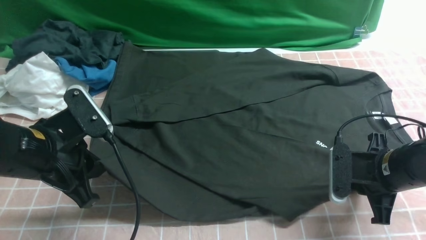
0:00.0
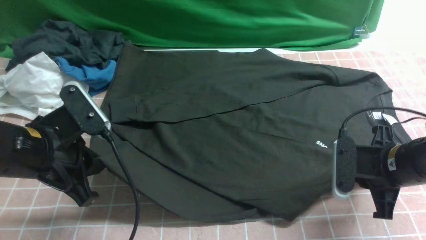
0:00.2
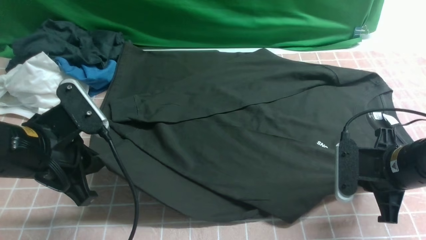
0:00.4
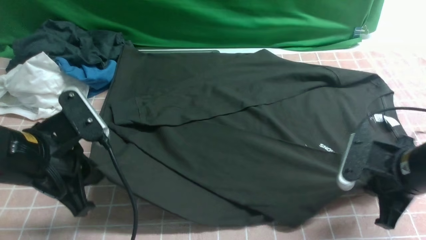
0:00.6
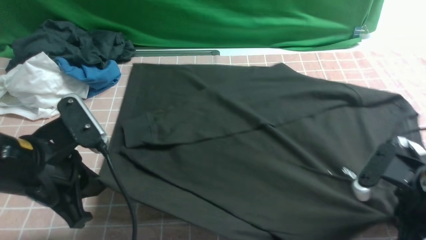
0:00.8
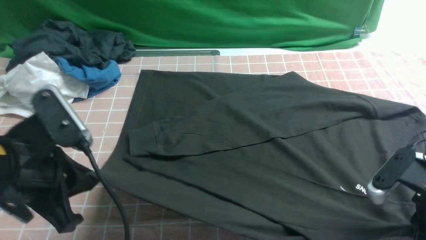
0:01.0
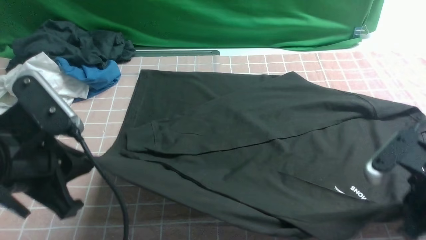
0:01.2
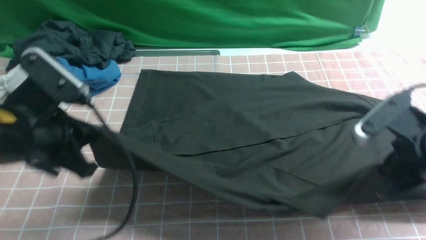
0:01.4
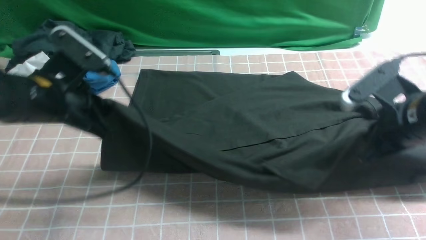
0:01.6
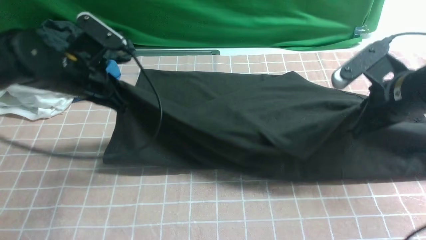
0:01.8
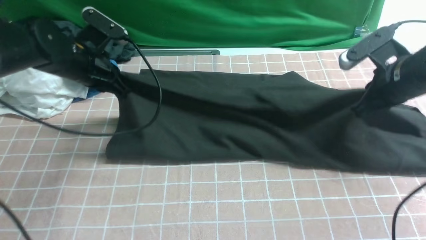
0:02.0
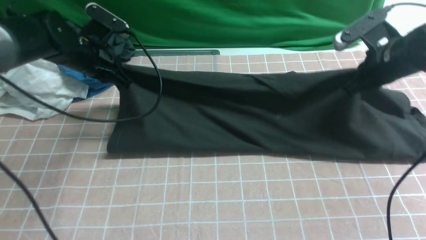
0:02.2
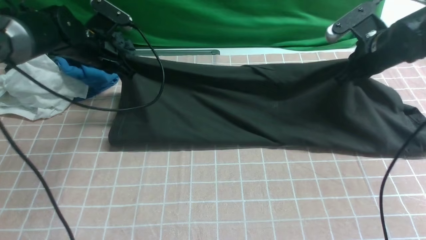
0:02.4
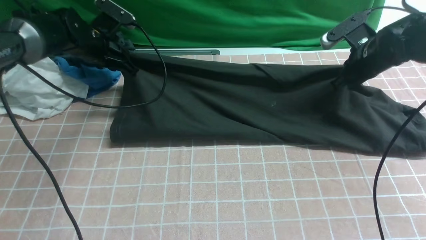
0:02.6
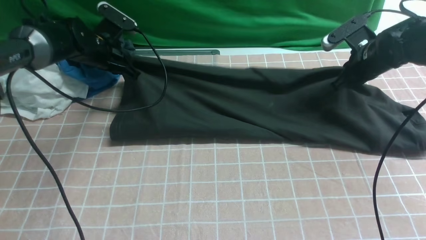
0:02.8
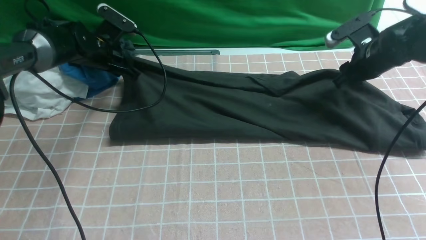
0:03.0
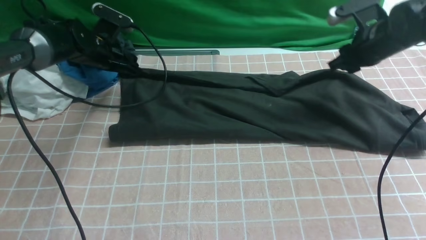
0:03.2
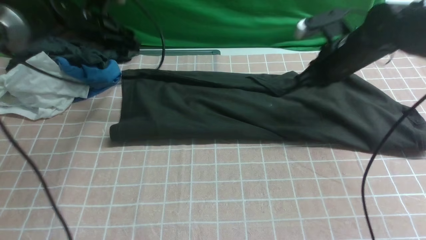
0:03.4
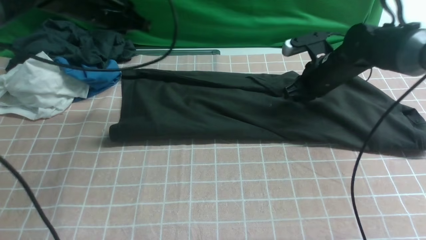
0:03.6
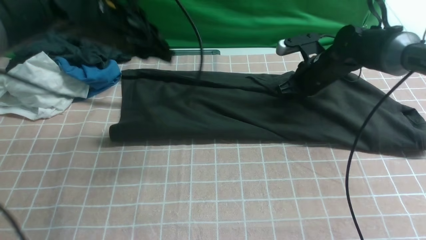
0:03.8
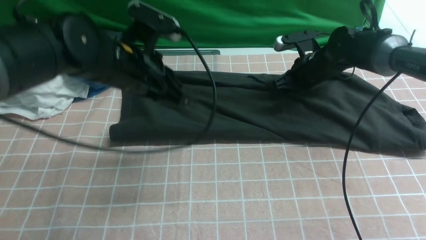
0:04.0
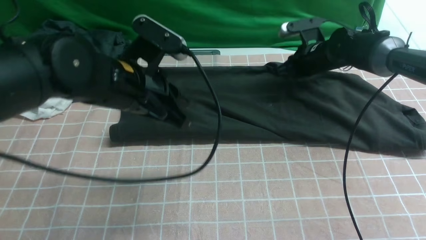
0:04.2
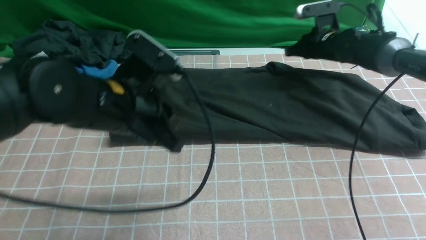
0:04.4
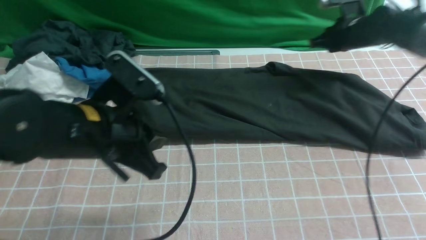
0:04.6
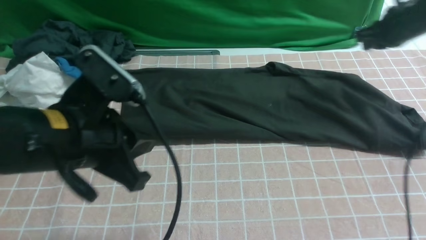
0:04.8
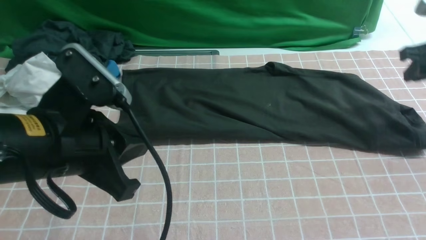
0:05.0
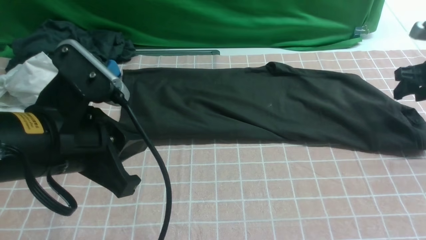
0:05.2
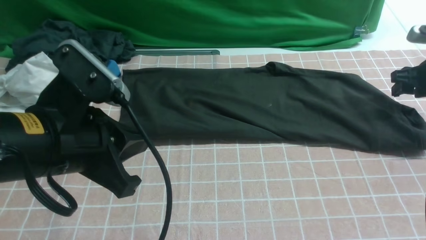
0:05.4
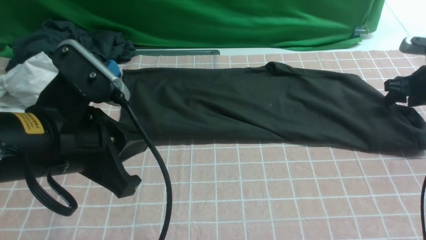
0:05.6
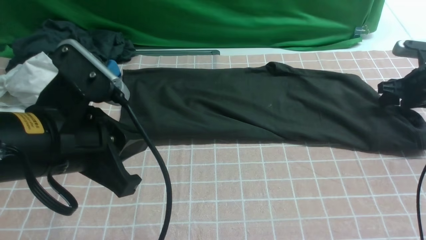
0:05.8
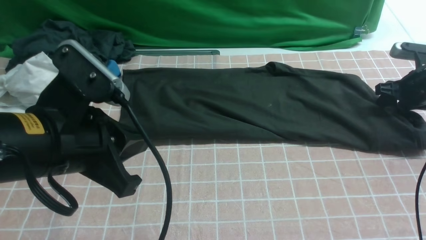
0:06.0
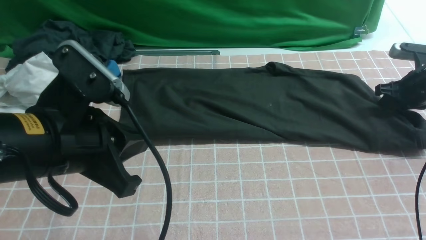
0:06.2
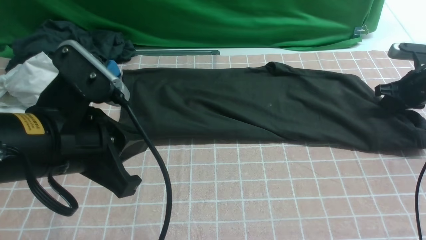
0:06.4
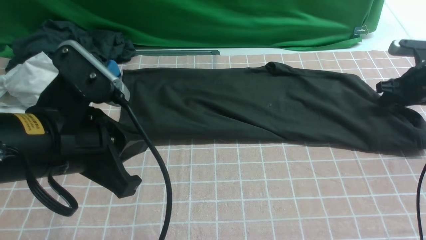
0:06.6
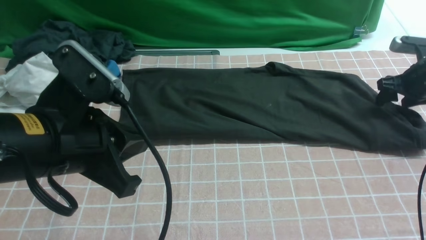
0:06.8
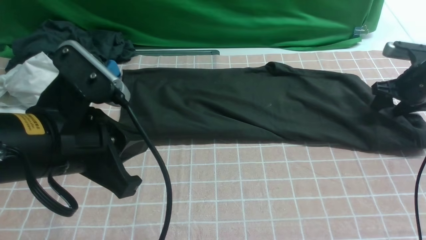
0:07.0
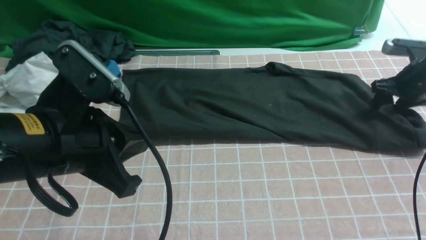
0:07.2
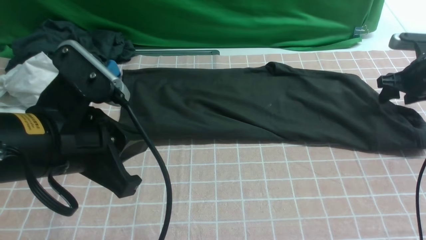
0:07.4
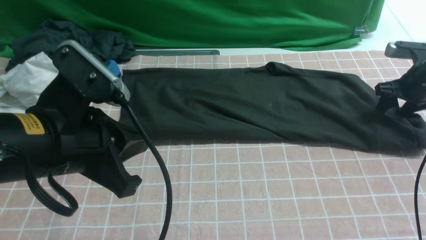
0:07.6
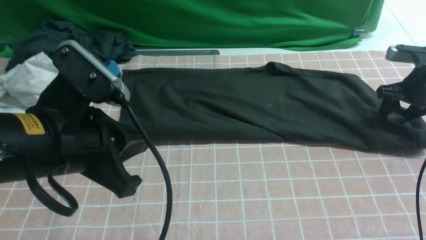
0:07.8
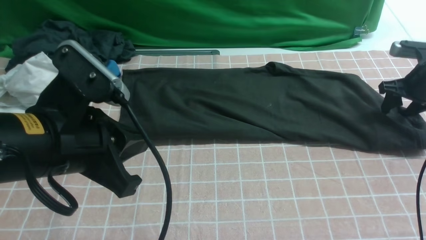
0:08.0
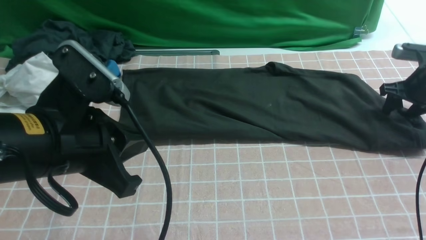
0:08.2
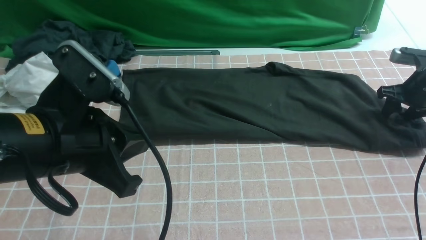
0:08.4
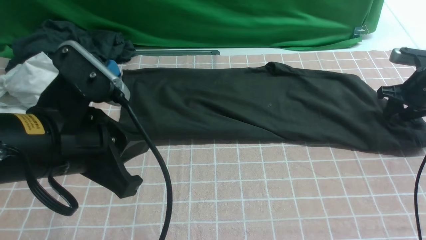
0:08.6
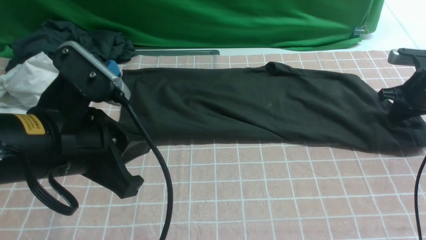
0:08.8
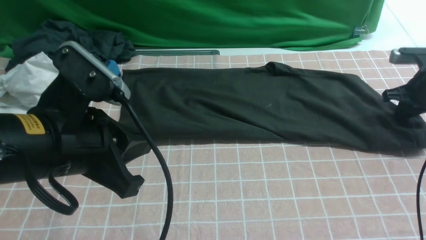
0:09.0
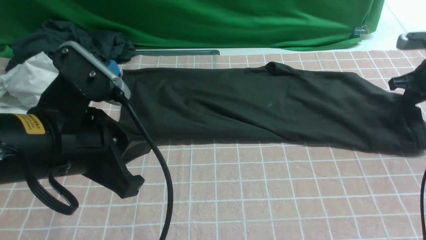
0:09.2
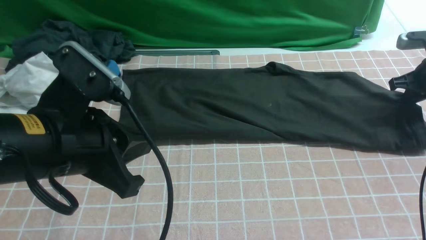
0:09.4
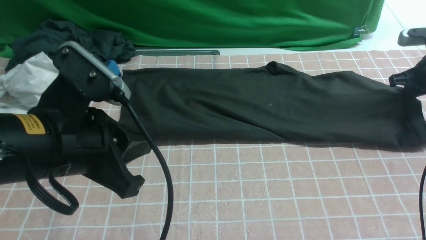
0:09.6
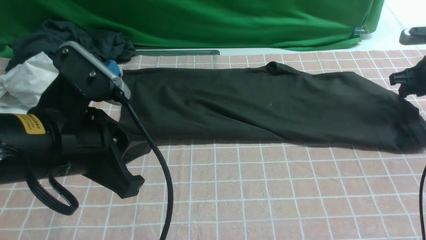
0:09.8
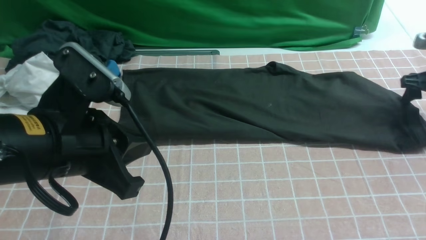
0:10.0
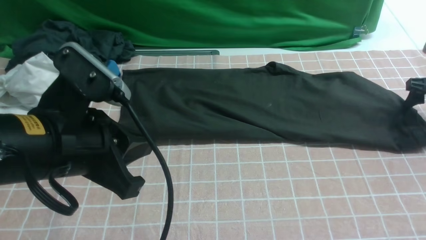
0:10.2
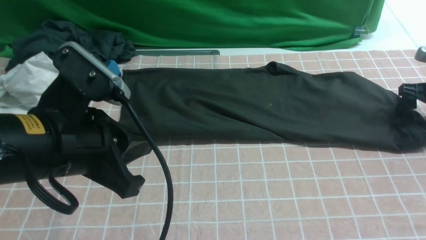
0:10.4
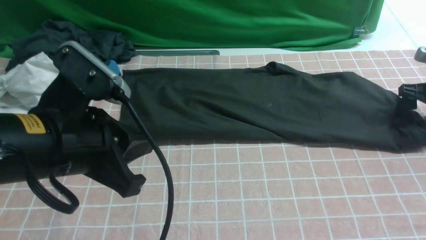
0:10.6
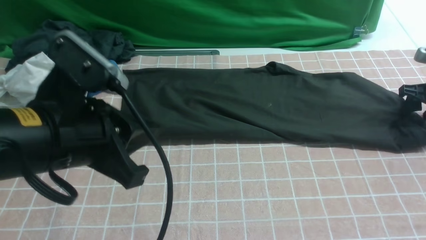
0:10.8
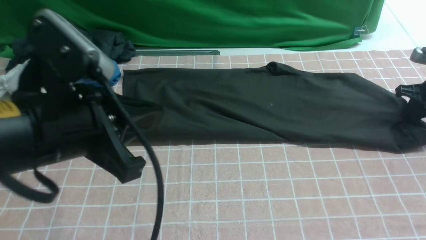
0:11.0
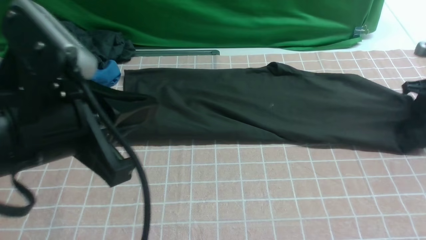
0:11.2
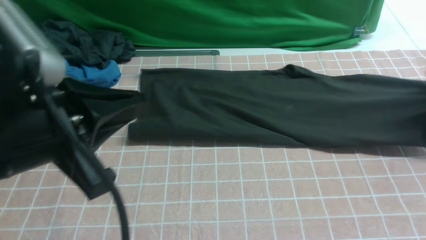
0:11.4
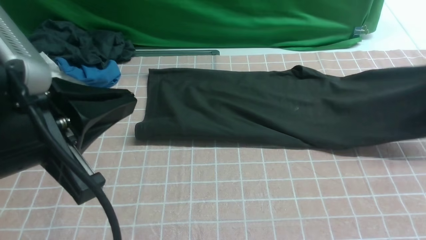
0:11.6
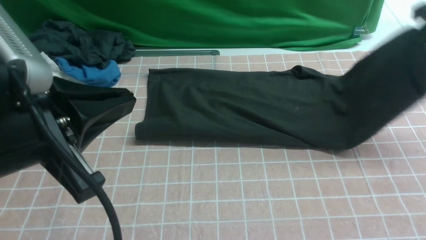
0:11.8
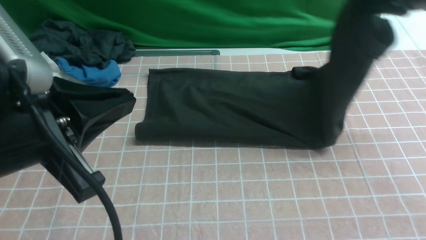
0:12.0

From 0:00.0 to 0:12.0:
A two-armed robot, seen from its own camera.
Step, from 0:00.4 to 0:04.4: use both arms to drag the lower edge of the fabric forward and fold it over the upper edge.
Step, from 0:04.6 to 0:11.2: use the right arm to clamp the right edge of the fabric.
From 0:00.0 to 0:01.6: The left gripper is displaced forward by some 5 cm. Meanwhile the right gripper shifts roughly 10 cm upward.
From 0:01.6 to 0:03.0: The left gripper moves forward and downward, approximately 20 cm, and opens its fingers, while the right gripper heads forward, covering about 20 cm, and opens up.
From 0:03.0 to 0:04.4: The right gripper travels forward by approximately 10 cm, and closes up. The left gripper is displaced backward and to the right by about 25 cm, and closes its fingers.
From 0:04.4 to 0:06.0: The left gripper is displaced backward by about 10 cm. Meanwhile the right gripper heads to the right and backward, covering approximately 20 cm, and opens up.
From 0:06.0 to 0:07.6: The grippers make only small movements.
From 0:07.6 to 0:09.0: The right gripper closes its fingers.
From 0:09.0 to 0:10.4: The right gripper opens.
From 0:10.4 to 0:12.0: The left gripper moves upward, approximately 5 cm. The right gripper moves upward and to the left, roughly 25 cm, and closes its fingers.

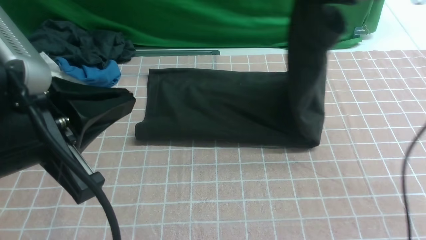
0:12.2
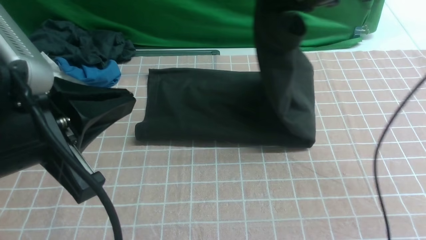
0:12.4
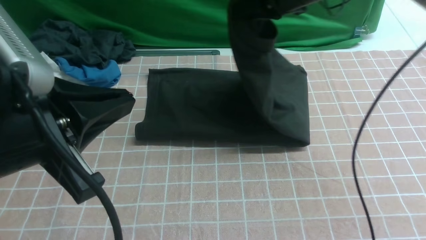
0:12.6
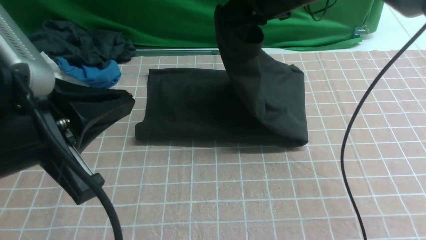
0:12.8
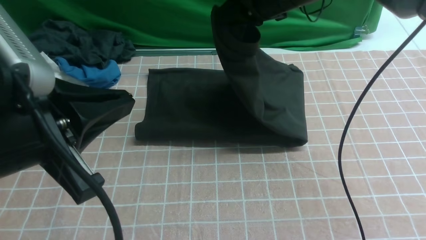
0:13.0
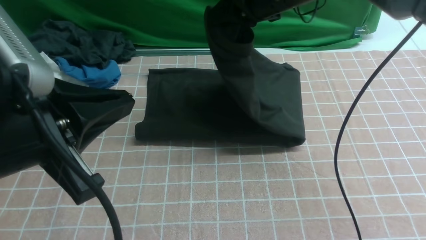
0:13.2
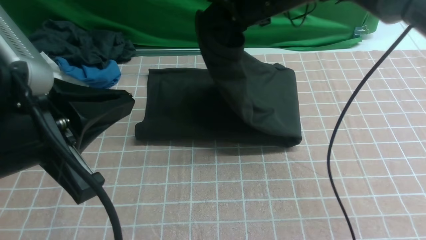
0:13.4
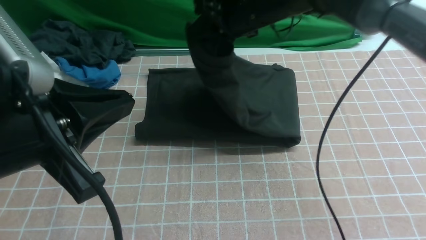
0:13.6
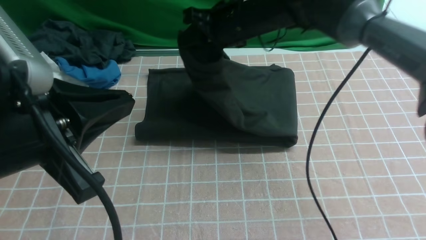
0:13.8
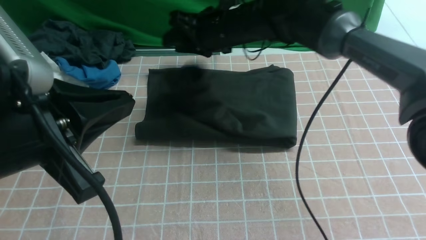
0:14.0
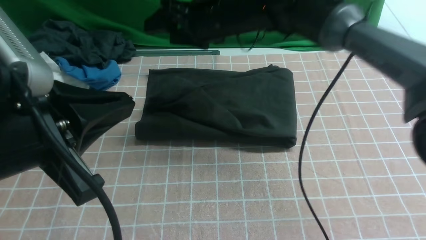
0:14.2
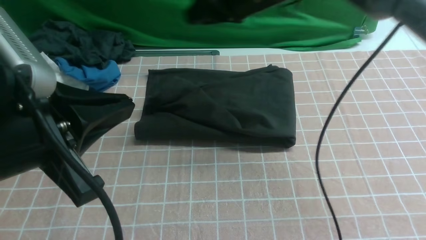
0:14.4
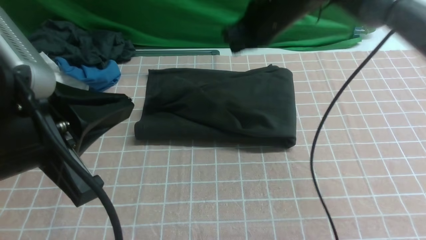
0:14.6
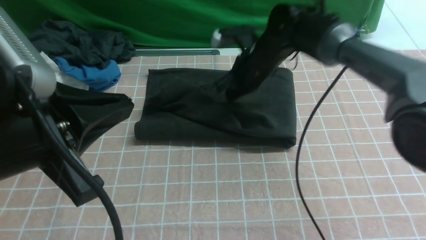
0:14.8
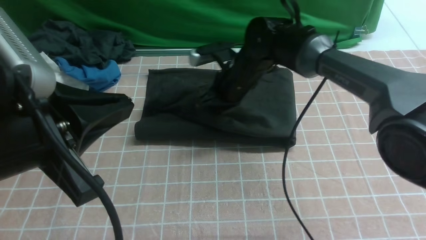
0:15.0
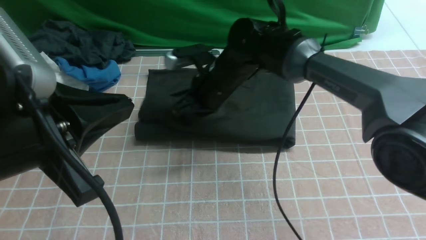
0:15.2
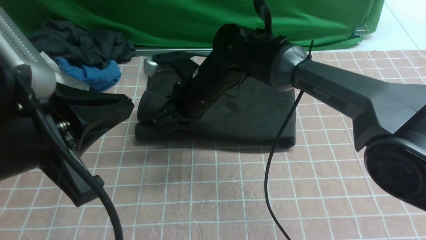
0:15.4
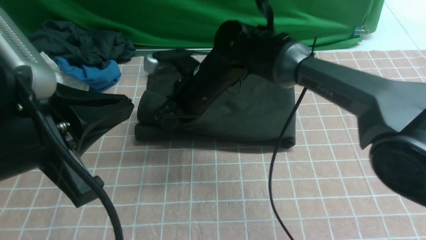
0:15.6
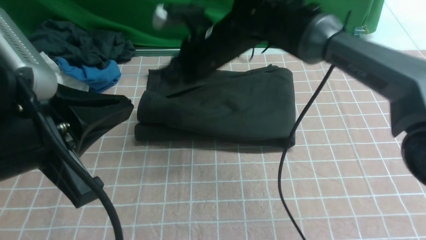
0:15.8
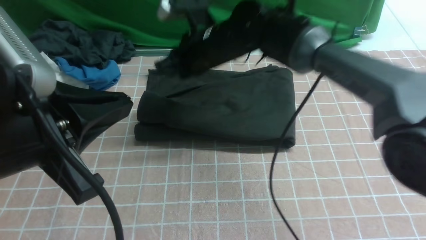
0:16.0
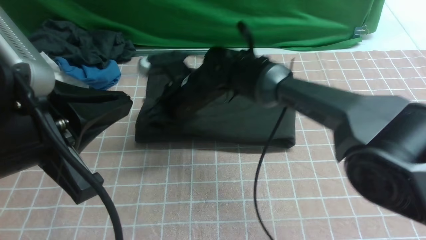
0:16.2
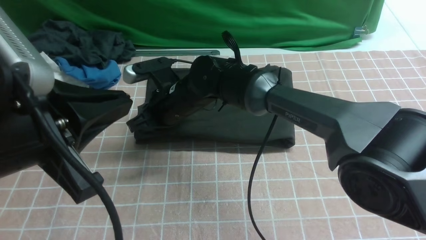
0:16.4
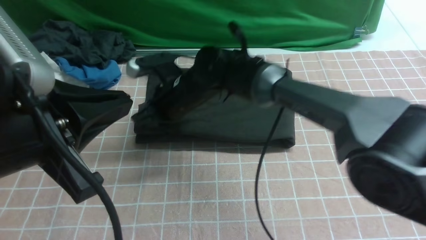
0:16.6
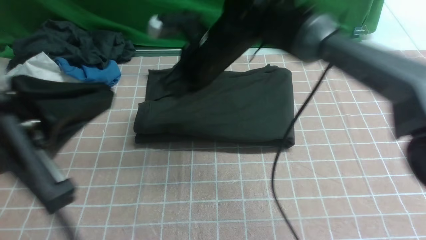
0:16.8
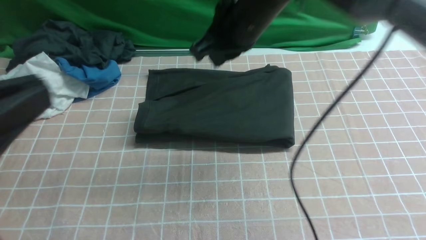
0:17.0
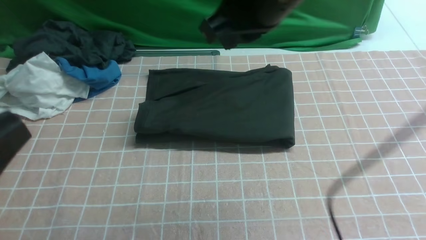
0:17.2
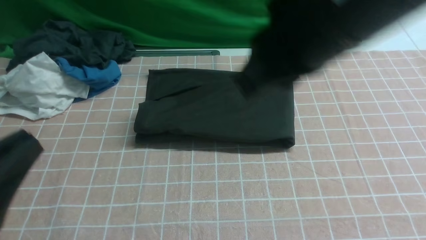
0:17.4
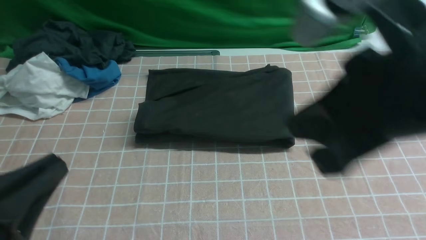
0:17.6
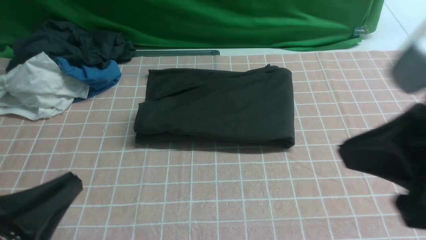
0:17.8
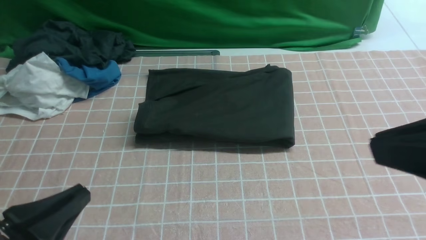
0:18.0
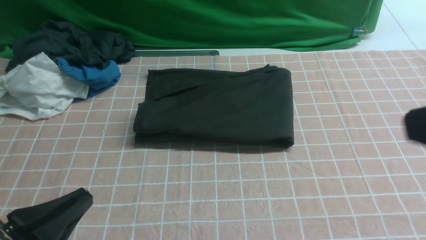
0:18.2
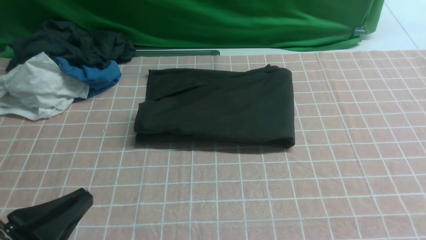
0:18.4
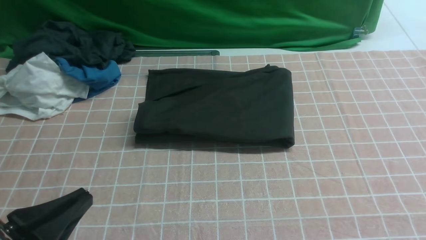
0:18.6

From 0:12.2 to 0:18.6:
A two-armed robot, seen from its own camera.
Step, from 0:12.2 to 0:14.4: use the right arm to drag the right edge of the fabric to the left and folds it over the left edge.
From 0:12.2 to 0:13.8: The right gripper goes some 20 cm to the left and downward.
From 0:13.8 to 0:15.4: The right gripper travels downward and to the left by approximately 10 cm, and opens, then closes once more.
From 0:15.4 to 0:17.0: The left gripper goes about 5 cm backward. The right gripper travels upward by some 15 cm.
From 0:17.0 to 0:18.6: The left gripper heads downward, covering some 15 cm. Meanwhile the right gripper moves backward and to the right, approximately 35 cm.
